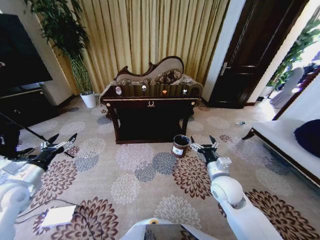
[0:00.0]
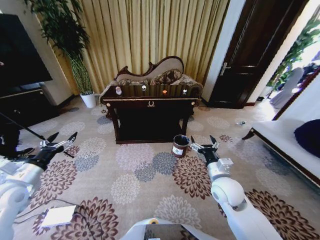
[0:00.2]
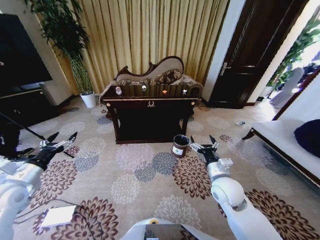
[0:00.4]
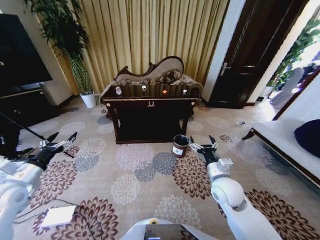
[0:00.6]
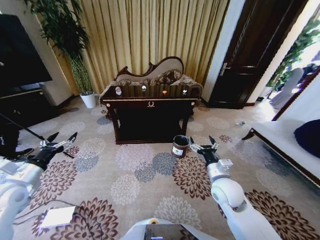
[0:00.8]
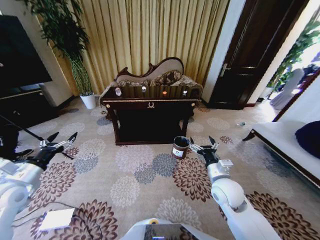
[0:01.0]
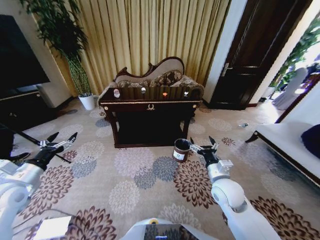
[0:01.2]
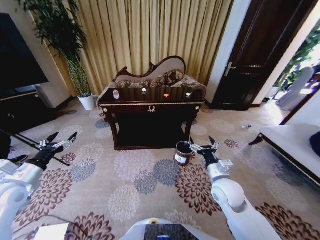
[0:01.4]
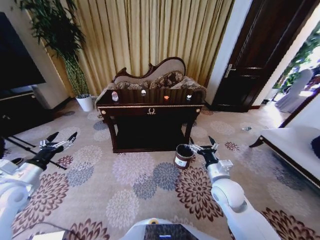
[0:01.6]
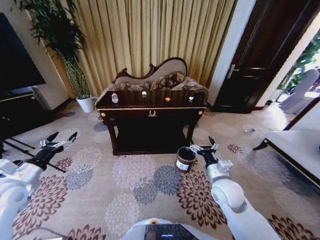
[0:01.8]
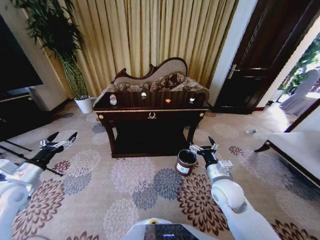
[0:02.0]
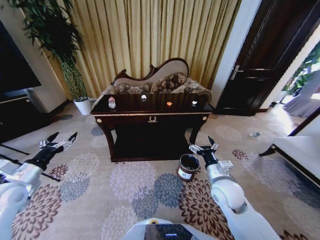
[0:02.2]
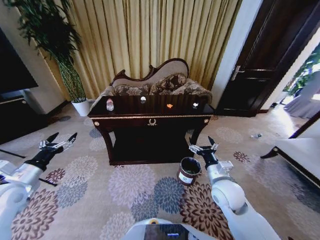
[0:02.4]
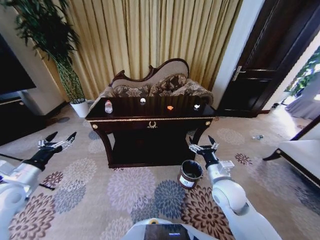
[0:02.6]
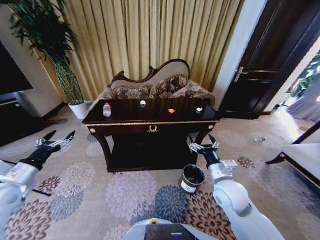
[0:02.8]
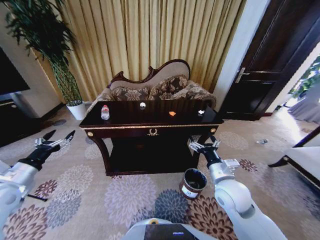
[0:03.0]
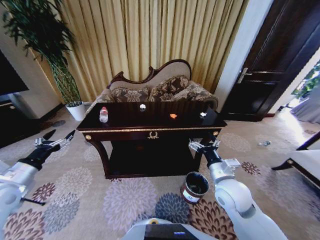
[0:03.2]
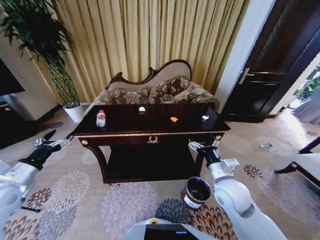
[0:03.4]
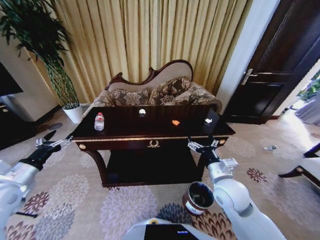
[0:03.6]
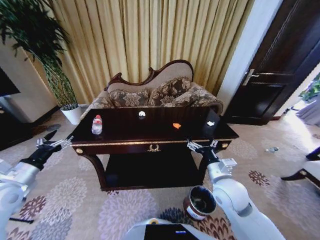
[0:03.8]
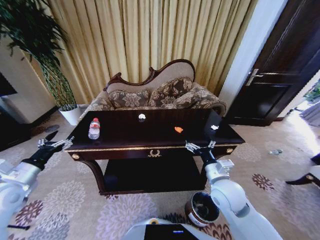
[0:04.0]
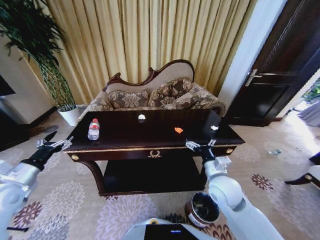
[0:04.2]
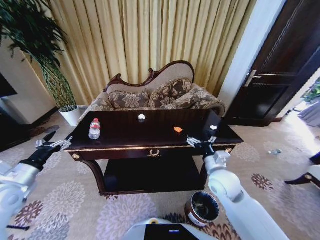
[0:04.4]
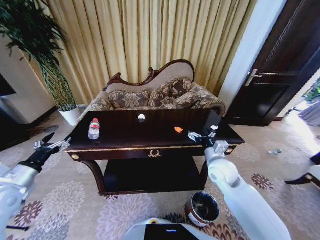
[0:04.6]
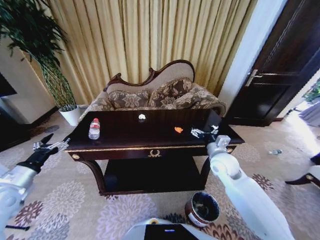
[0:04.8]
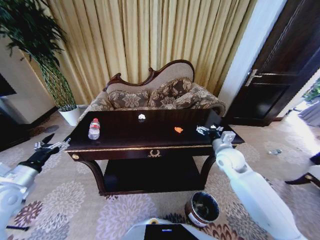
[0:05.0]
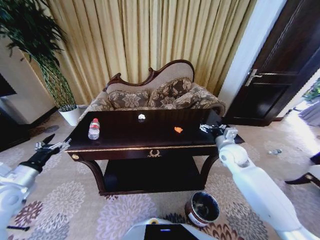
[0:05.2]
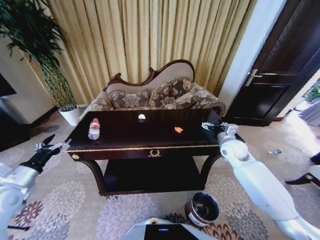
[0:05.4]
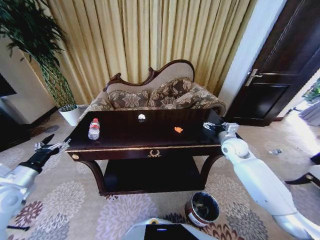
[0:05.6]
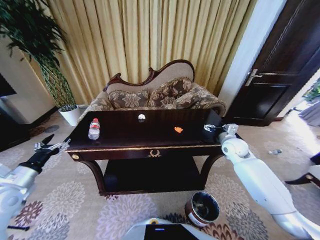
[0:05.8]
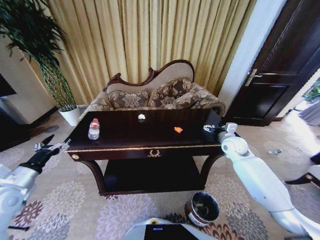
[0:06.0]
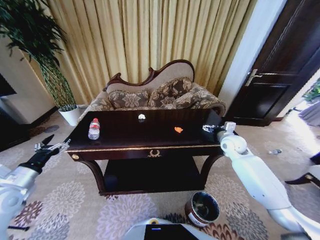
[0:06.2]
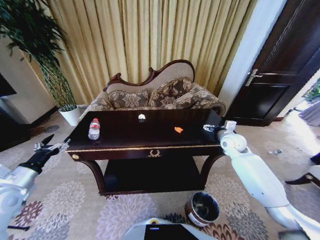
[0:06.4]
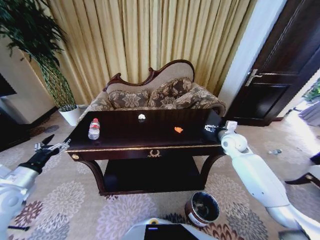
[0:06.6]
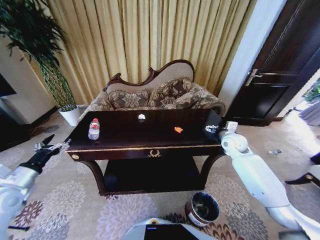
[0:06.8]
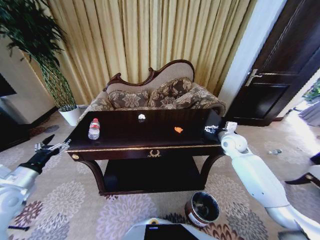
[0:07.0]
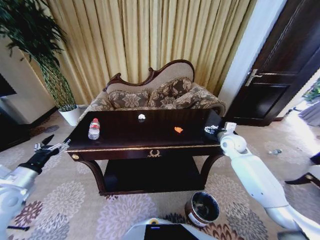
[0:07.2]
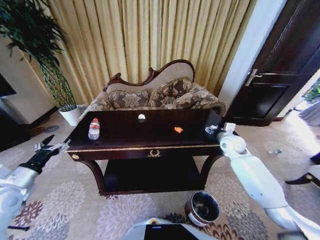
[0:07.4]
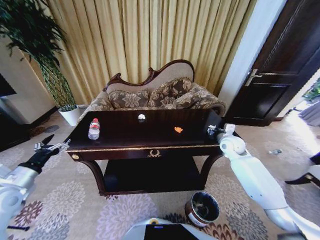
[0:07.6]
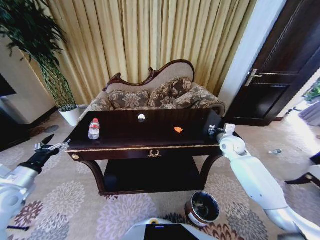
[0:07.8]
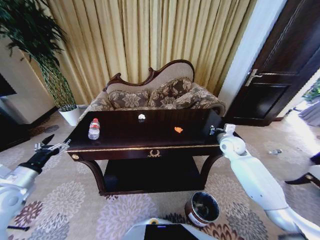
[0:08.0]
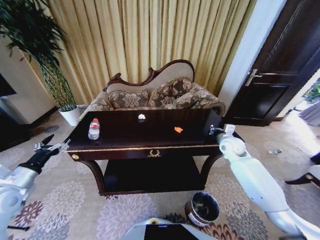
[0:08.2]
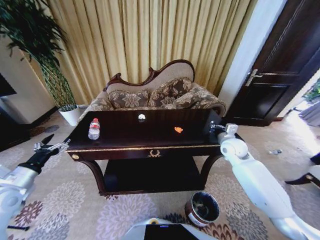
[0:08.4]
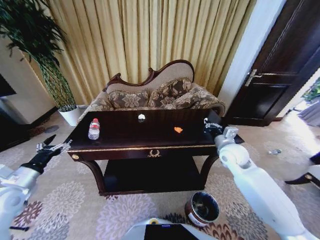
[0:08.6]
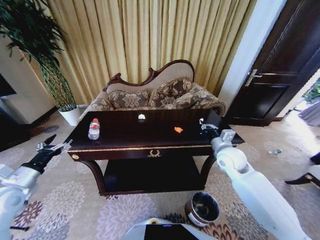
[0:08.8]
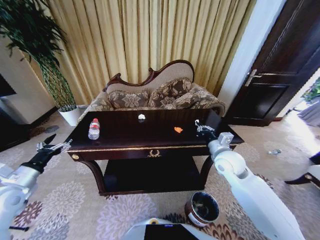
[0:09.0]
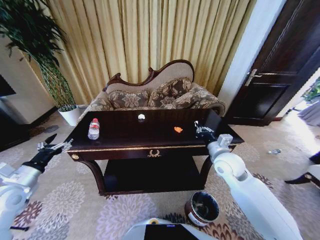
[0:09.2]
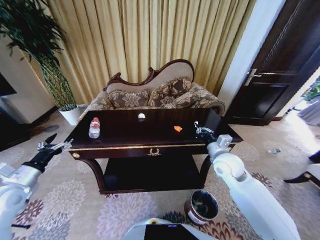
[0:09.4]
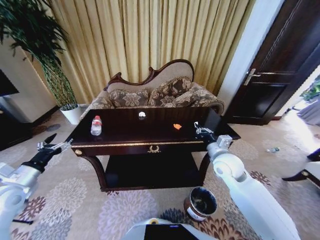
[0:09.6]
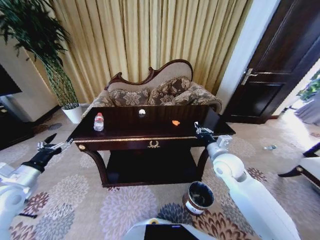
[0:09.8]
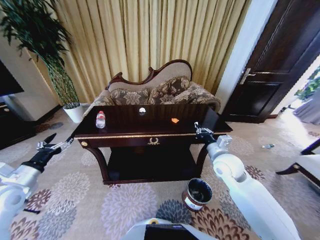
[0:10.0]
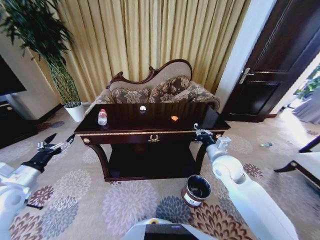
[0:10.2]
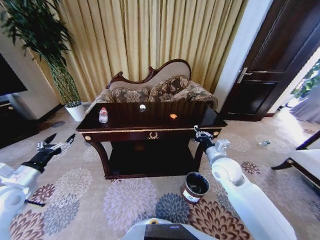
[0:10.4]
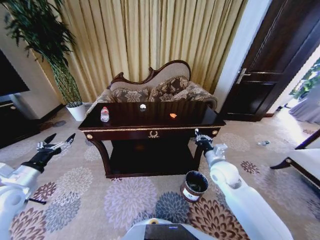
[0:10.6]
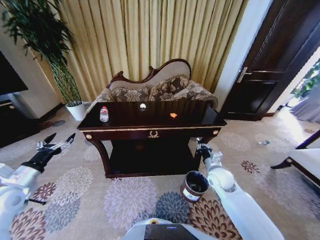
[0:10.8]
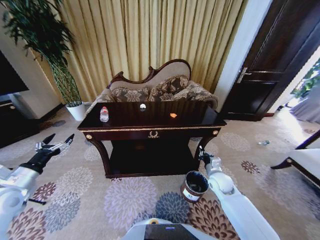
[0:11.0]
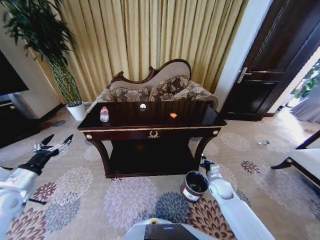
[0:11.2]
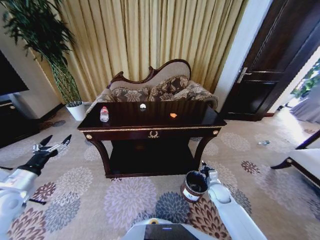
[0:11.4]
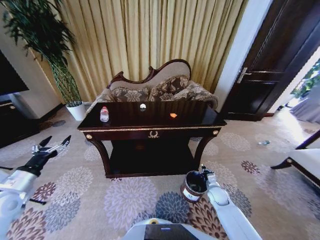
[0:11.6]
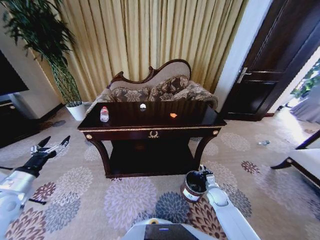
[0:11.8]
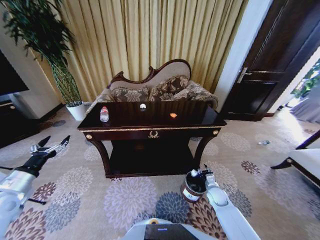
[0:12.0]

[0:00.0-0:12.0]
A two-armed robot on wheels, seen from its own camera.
Task of the whole recording: Move to the front of the table and place the trash on the table into the trash bin.
0:04.4 to 0:06.0: The right gripper travels forward and to the right by some 20 cm.
0:06.0 to 0:07.6: The right gripper closes up.
0:07.6 to 0:09.0: The right gripper moves backward and to the left, roughly 15 cm, and closes its fingers.
0:10.4 to 0:12.0: The right gripper moves downward, roughly 25 cm.

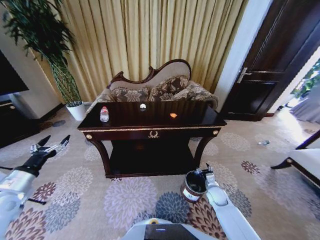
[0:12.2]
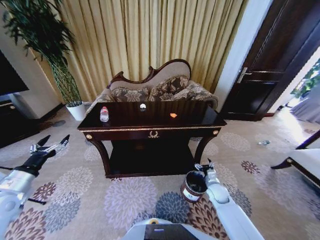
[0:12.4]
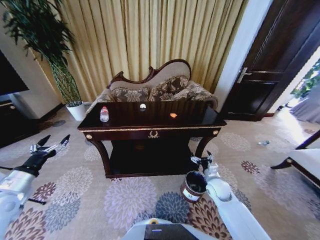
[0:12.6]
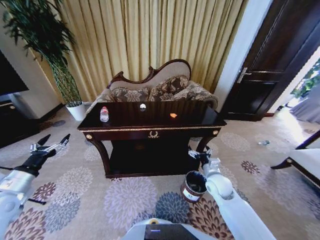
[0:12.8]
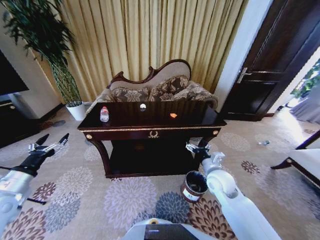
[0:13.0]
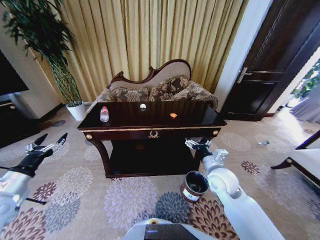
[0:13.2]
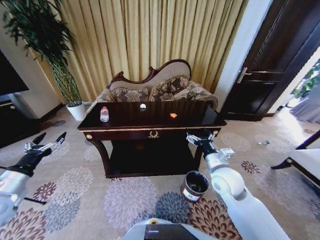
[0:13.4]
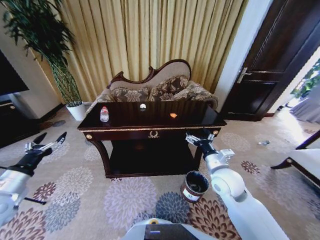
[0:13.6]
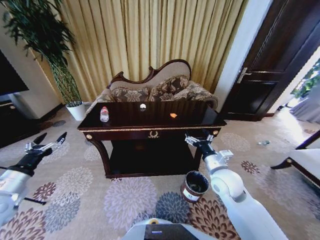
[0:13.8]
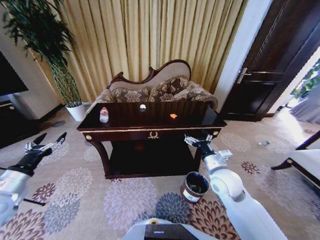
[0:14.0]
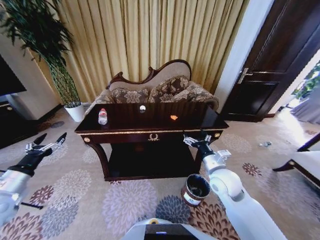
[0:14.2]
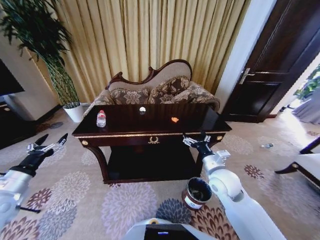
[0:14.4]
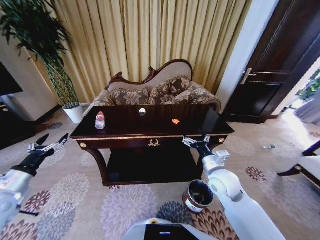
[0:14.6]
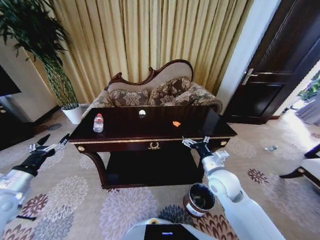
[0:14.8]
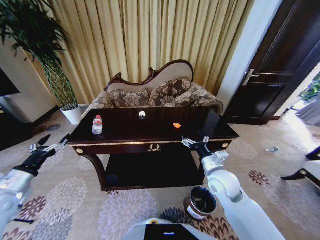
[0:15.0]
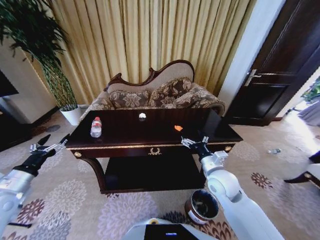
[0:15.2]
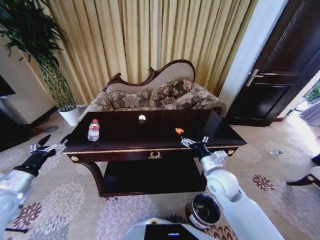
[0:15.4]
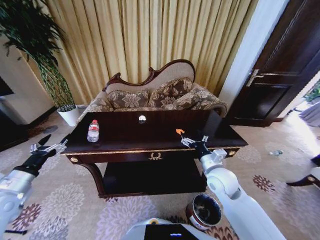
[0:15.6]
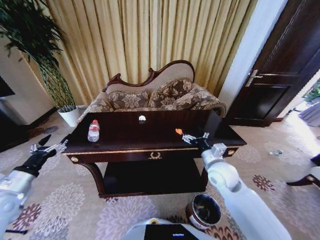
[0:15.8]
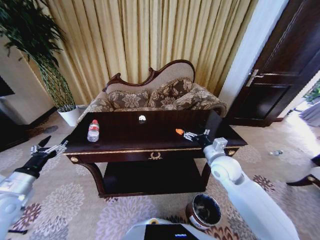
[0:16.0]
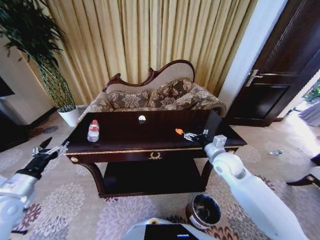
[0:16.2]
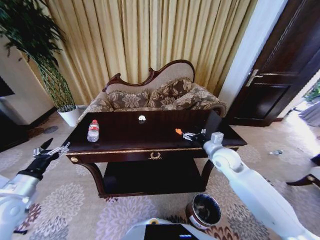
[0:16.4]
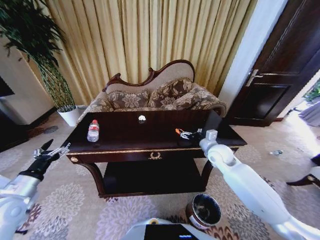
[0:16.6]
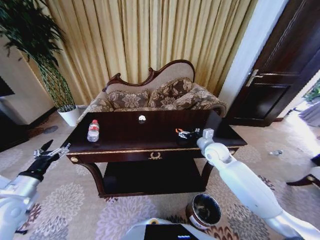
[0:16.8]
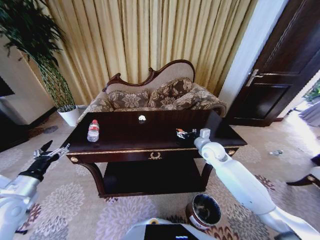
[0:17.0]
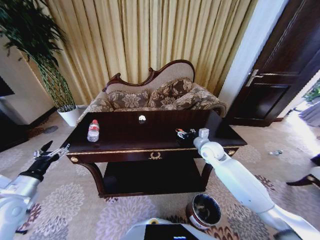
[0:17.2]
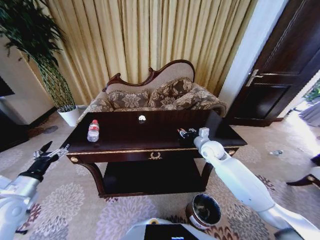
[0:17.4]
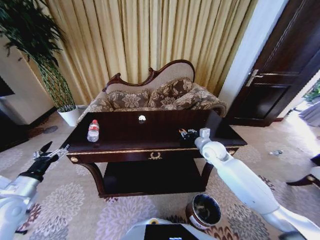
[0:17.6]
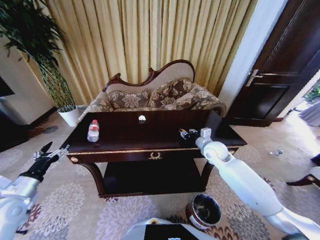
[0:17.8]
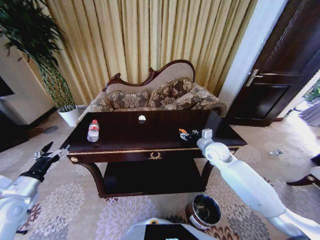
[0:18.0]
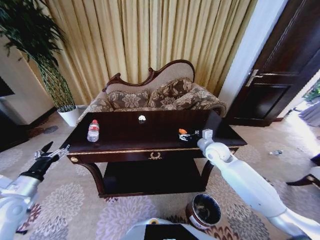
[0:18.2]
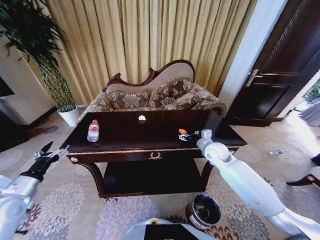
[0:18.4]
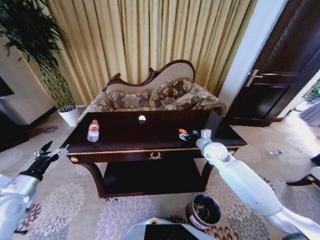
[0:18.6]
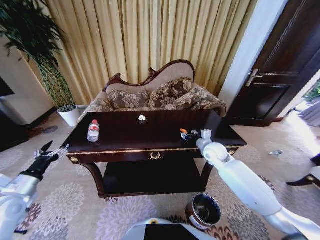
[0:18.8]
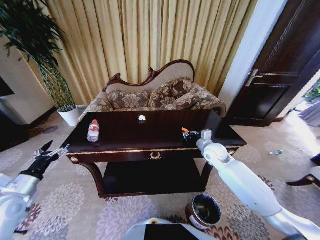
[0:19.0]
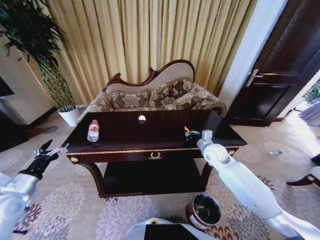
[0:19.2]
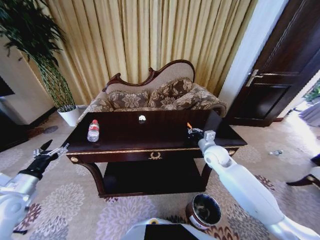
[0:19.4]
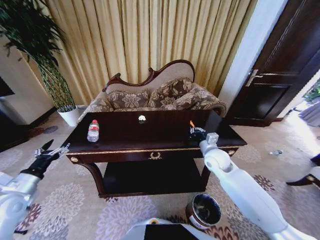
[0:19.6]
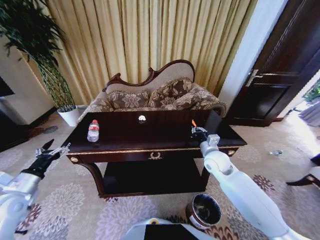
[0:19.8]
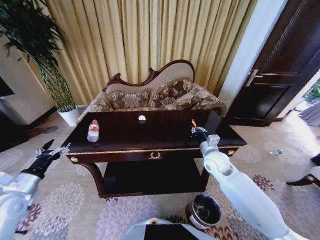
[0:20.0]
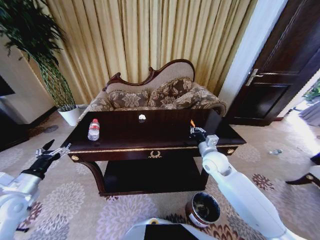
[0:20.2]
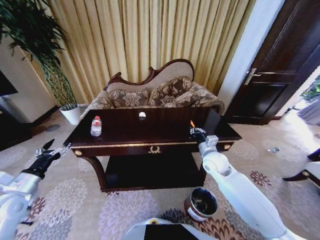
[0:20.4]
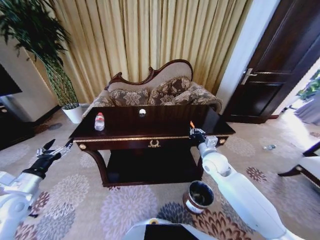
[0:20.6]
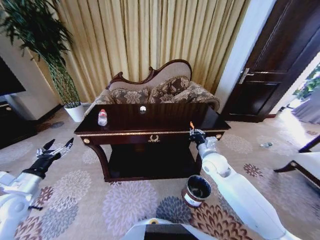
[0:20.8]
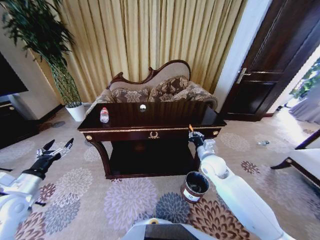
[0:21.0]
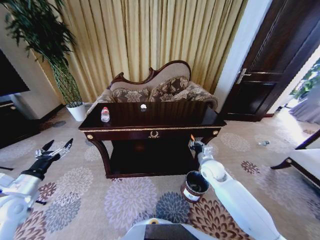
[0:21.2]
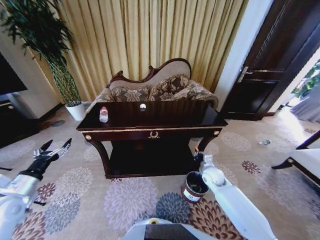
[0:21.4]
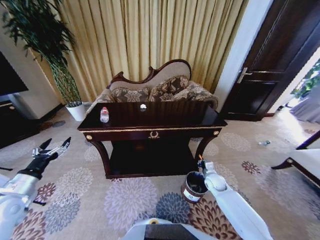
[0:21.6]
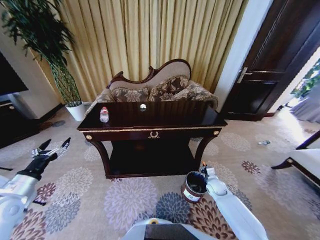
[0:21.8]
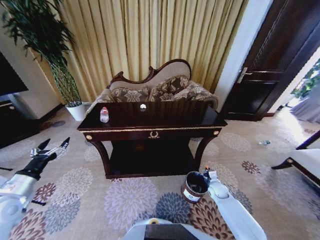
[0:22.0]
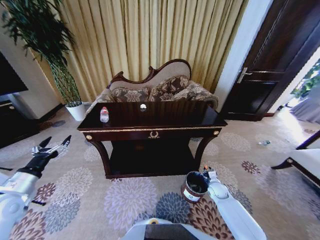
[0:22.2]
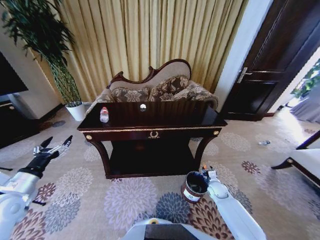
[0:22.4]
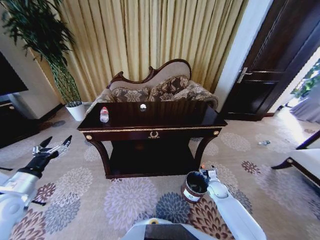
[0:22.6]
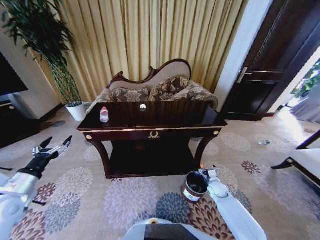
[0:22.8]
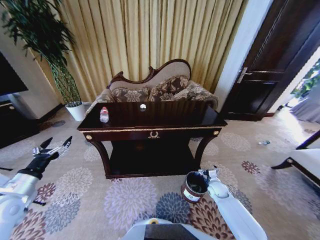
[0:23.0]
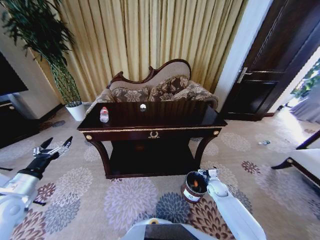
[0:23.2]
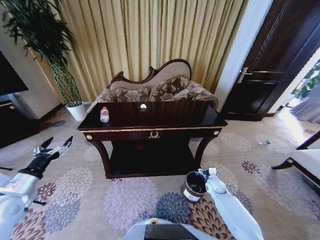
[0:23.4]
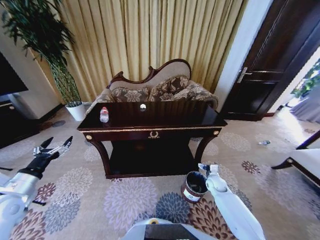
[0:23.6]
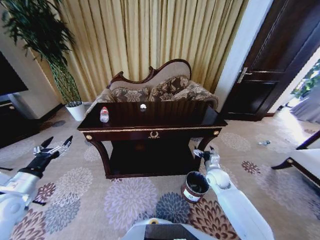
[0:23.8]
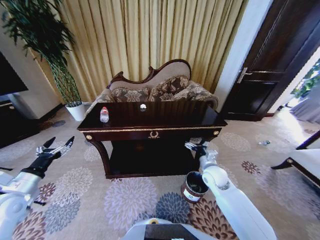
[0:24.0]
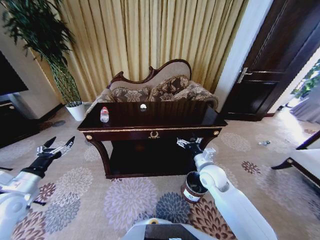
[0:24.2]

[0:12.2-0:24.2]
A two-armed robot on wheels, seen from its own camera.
Task of the whole recording: Move to the front of the table and place the trash on the table into the trash bin.
0:12.2 to 0:13.8: The right gripper travels upward by some 25 cm, and opens up.
0:15.2 to 0:16.6: The right gripper is displaced forward by about 10 cm.
0:16.6 to 0:18.2: The right gripper closes and opens again.
0:18.2 to 0:19.8: The right gripper ends up approximately 5 cm from where it was, and closes its fingers.
0:19.8 to 0:21.2: The right gripper is displaced downward by roughly 5 cm.
0:21.2 to 0:22.6: The right gripper goes roughly 20 cm downward and to the right, and opens.
0:22.6 to 0:24.2: The right gripper heads upward and to the left, covering some 25 cm.
